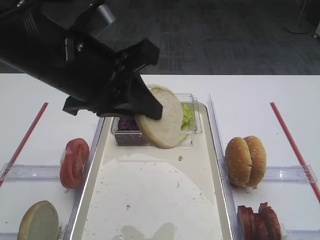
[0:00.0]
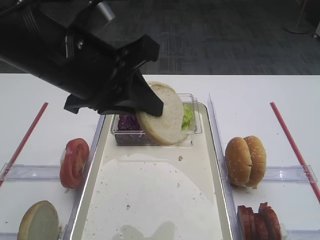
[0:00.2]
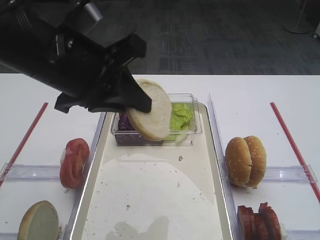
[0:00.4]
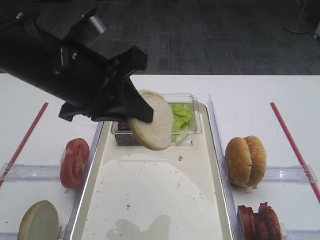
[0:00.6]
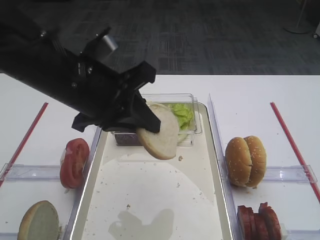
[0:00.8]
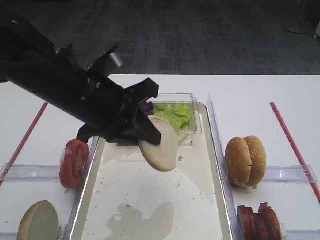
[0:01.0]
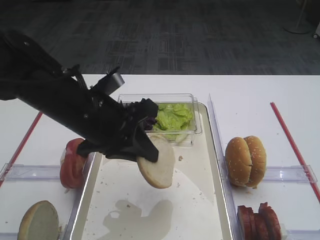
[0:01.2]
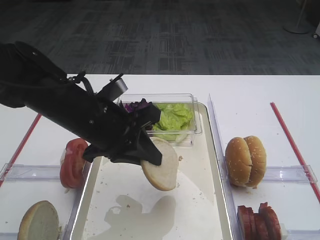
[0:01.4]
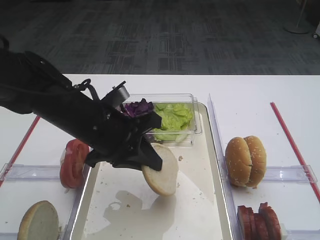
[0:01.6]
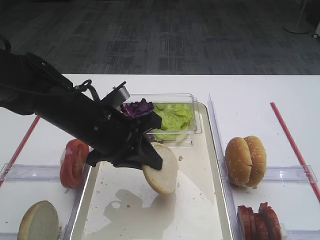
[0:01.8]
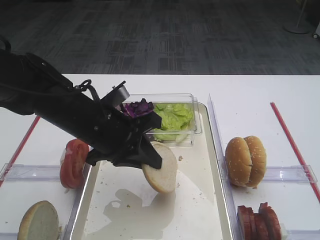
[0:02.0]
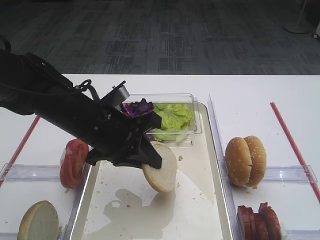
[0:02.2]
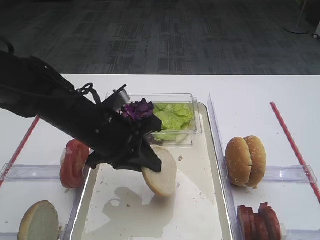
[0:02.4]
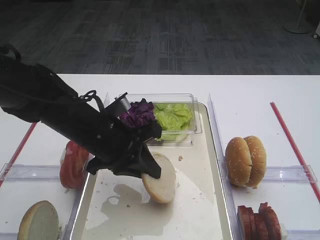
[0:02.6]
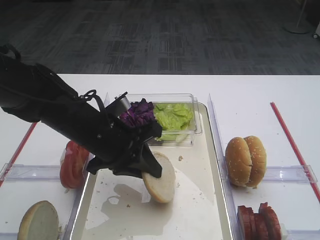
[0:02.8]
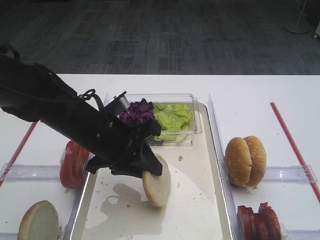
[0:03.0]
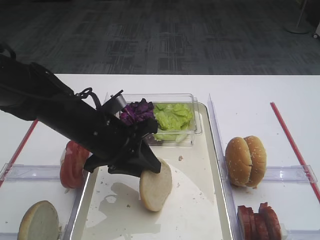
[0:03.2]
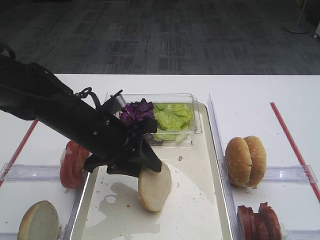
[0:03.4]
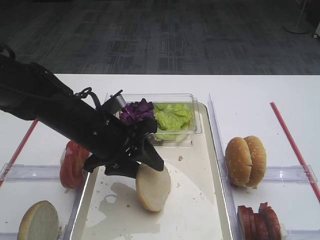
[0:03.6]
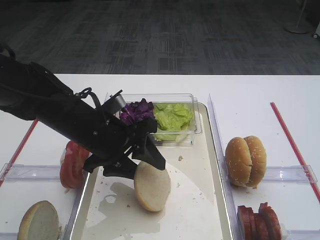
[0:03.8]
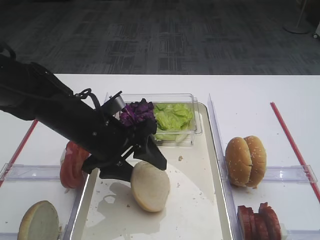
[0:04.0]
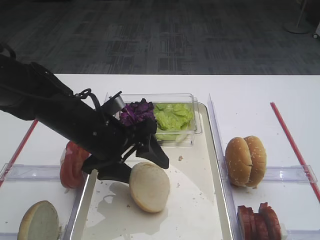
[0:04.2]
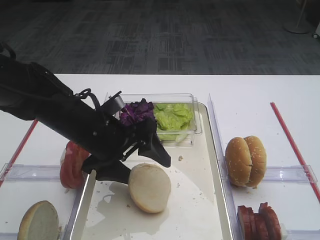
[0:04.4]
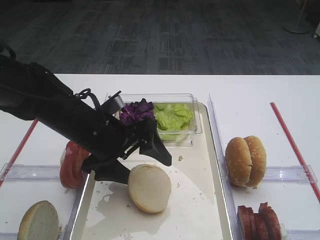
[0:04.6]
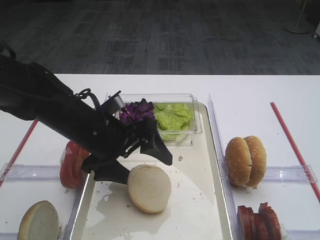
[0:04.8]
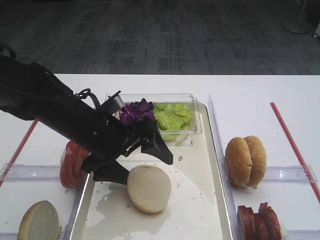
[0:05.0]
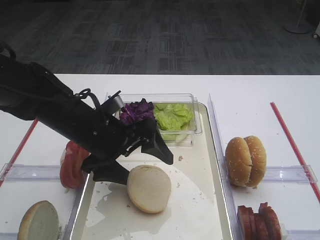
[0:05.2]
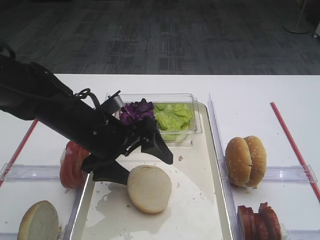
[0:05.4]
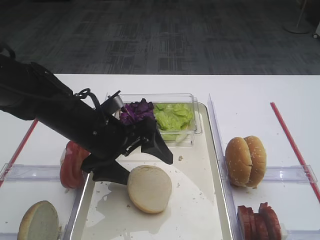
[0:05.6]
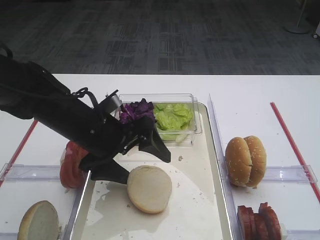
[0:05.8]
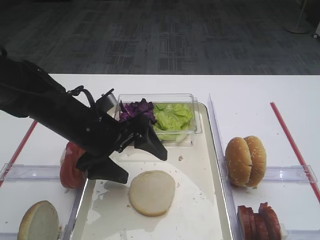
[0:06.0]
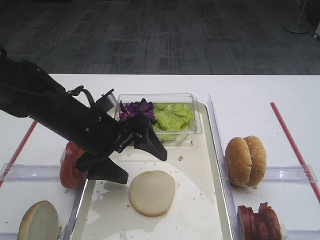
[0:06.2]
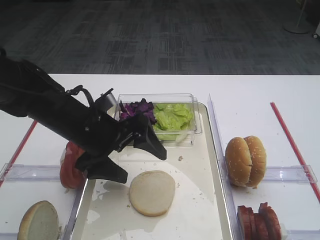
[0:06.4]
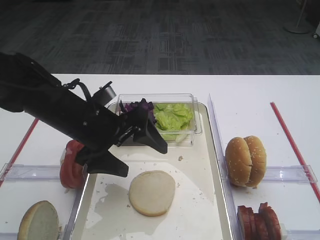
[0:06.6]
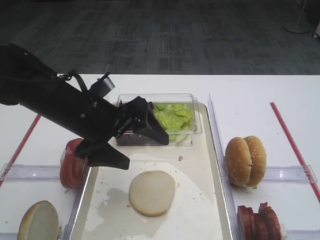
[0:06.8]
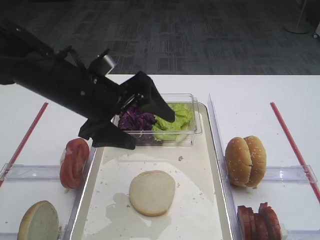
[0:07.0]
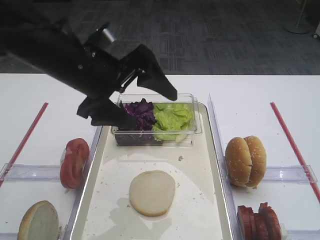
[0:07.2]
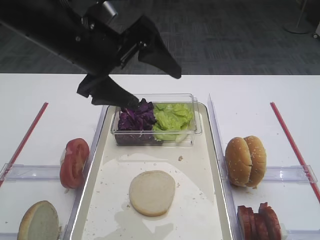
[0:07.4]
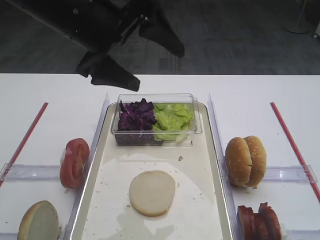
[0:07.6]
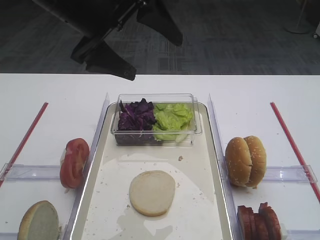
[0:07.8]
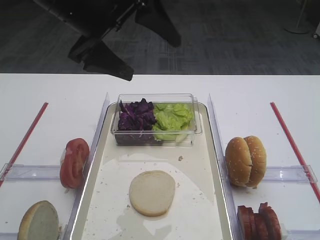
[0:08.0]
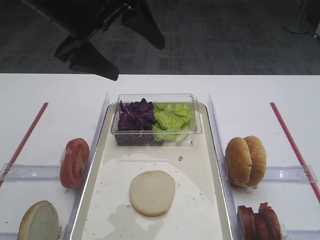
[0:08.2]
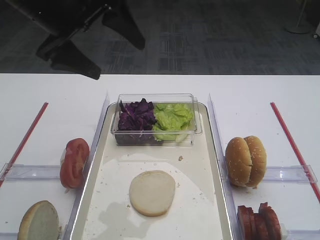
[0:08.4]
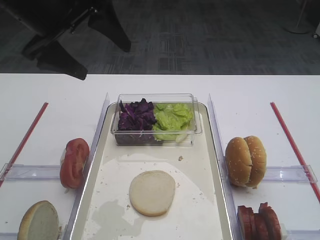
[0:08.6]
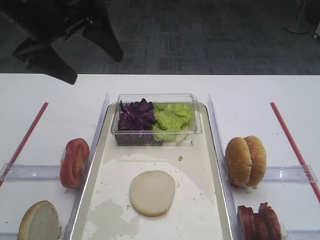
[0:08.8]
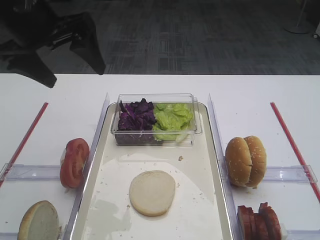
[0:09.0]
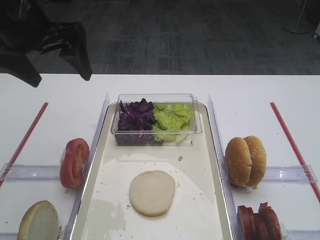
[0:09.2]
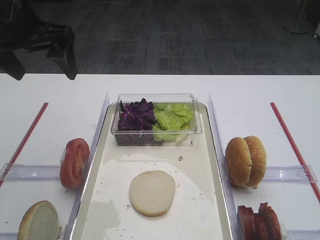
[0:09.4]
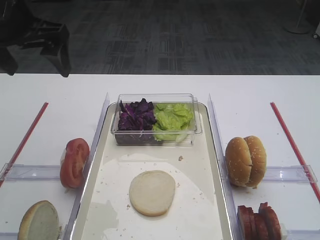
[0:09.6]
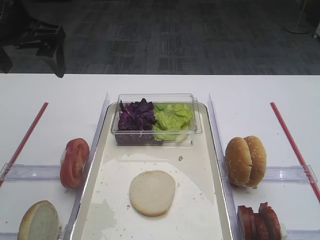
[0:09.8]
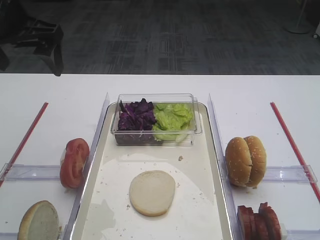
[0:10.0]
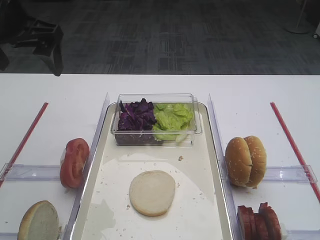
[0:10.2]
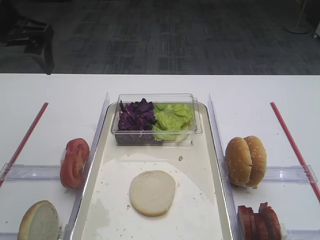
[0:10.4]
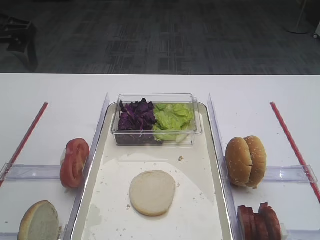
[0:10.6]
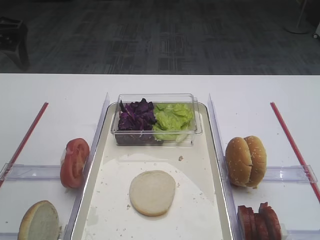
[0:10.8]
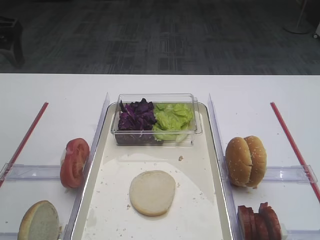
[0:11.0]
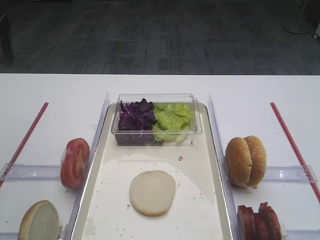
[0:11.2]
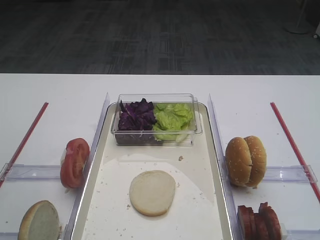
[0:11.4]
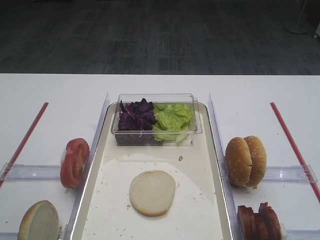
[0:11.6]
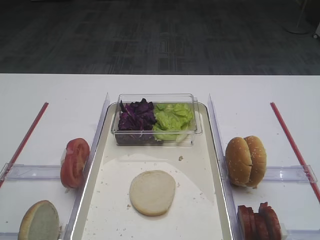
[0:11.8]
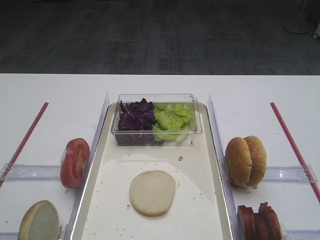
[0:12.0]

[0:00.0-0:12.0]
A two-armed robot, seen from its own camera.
Step, 0:00.0 to 0:06.2: Place the bread slice on the tray with the left gripper.
0:00.0 to 0:01.6: The left gripper goes about 10 cm downward.
0:01.6 to 0:03.0: There are only small adjustments of the grippers.
0:03.0 to 0:04.4: The left gripper opens up.
0:04.4 to 0:06.0: The two grippers keep their place.
0:06.0 to 0:07.6: The left gripper goes approximately 15 cm upward.
0:07.6 to 0:09.0: The left gripper moves to the left, some 10 cm.
0:09.0 to 0:10.4: The left gripper shifts some 5 cm to the left.

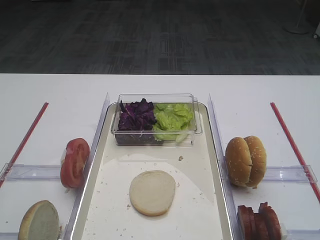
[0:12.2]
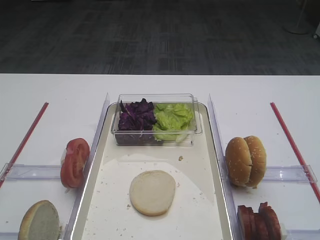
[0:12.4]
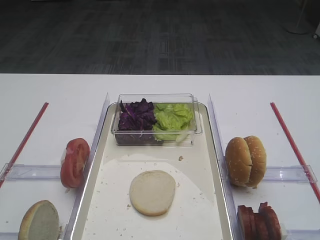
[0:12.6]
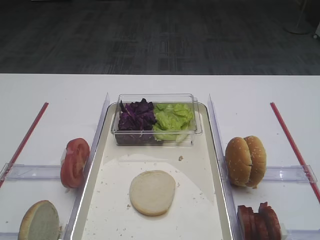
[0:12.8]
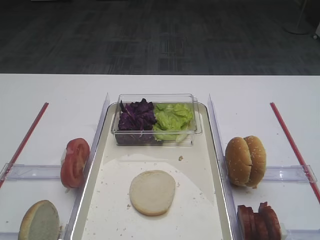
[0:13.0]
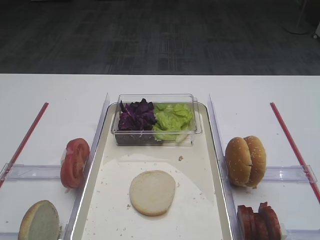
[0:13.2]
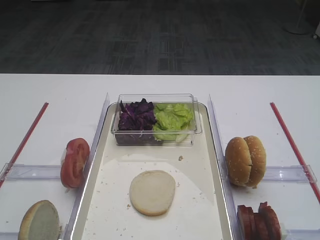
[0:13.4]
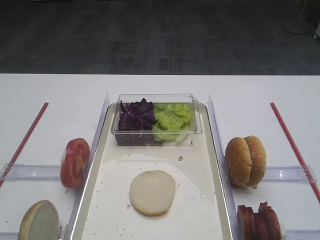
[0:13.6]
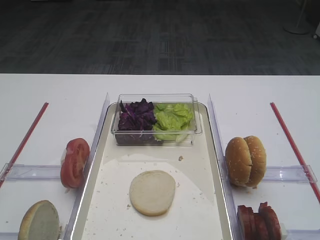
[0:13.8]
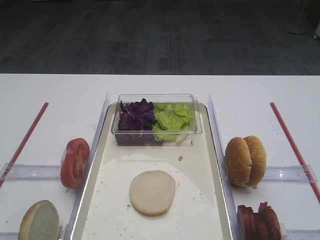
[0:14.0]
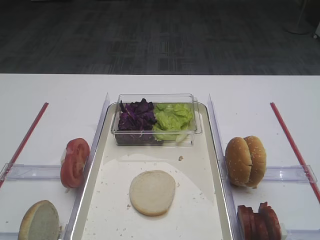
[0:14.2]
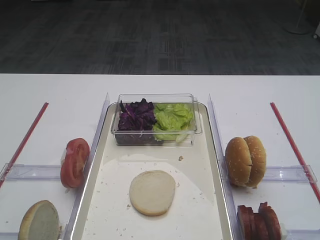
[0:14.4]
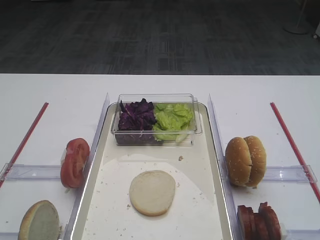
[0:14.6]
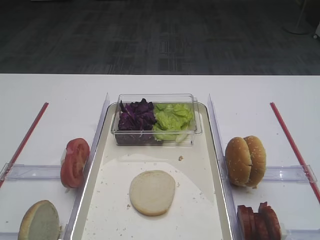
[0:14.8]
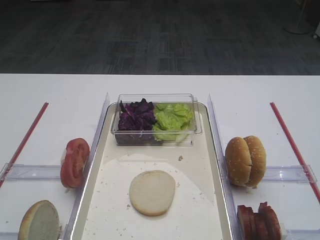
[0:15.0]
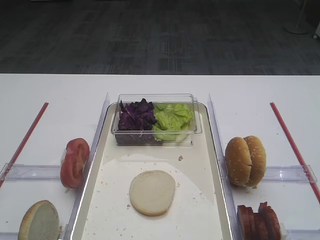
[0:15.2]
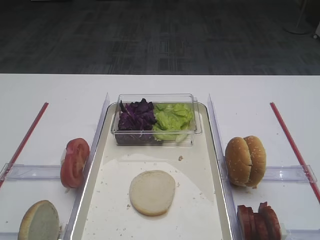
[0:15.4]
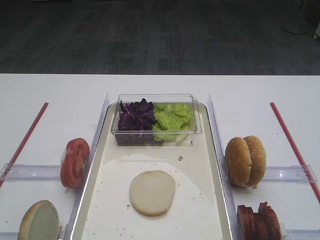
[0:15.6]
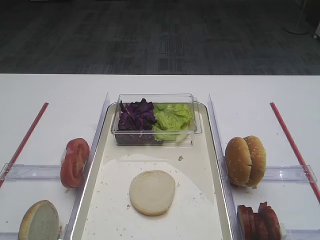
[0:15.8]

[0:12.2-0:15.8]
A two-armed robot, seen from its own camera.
0:14.0 to 0:15.8: Both grippers stay put.

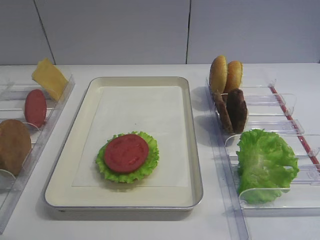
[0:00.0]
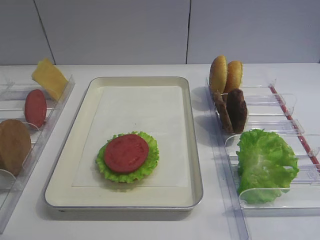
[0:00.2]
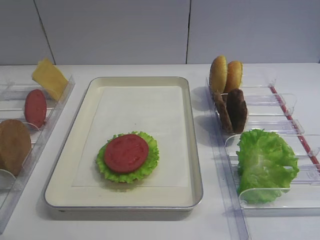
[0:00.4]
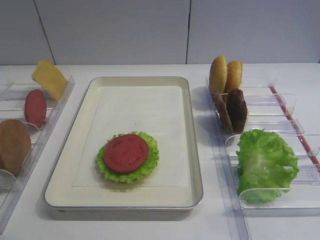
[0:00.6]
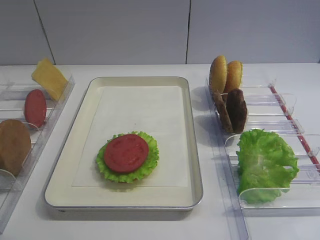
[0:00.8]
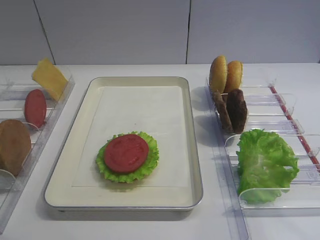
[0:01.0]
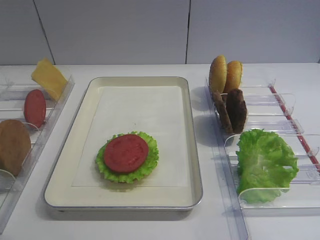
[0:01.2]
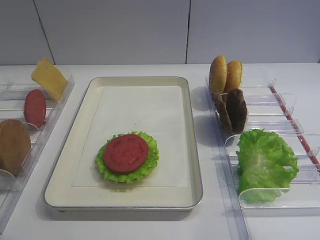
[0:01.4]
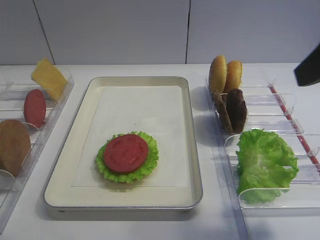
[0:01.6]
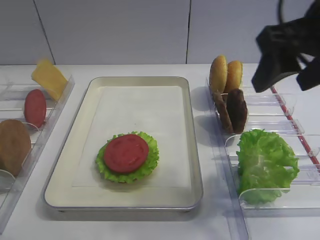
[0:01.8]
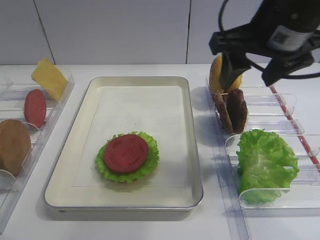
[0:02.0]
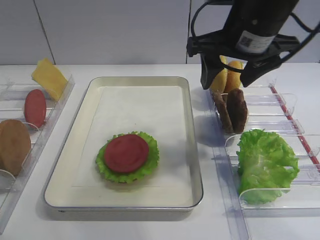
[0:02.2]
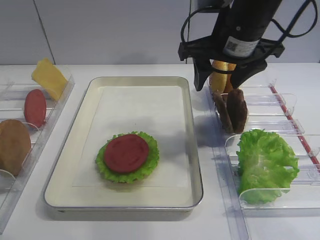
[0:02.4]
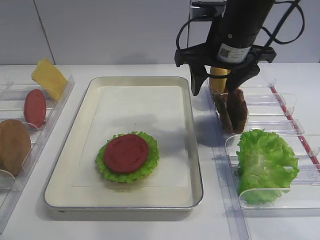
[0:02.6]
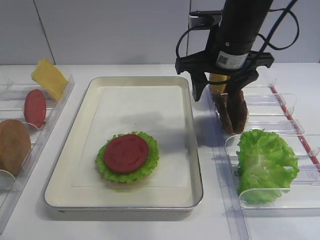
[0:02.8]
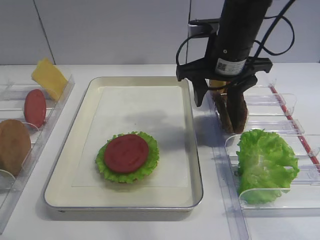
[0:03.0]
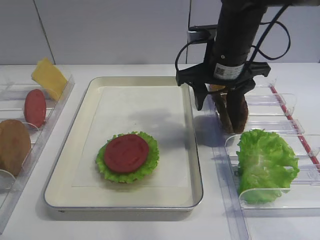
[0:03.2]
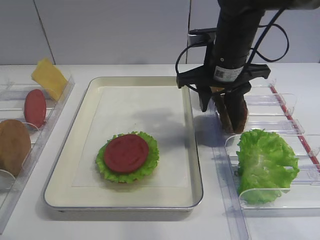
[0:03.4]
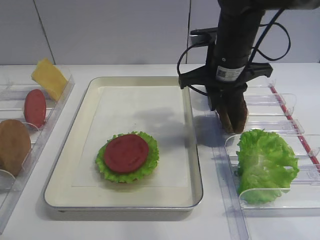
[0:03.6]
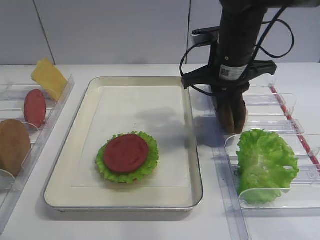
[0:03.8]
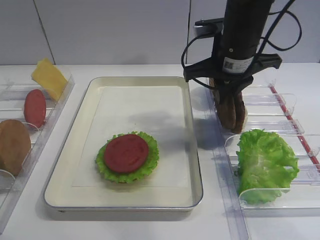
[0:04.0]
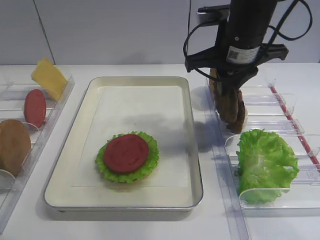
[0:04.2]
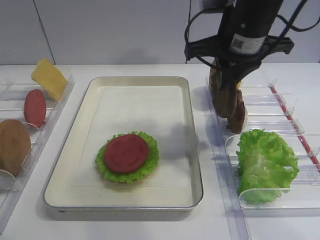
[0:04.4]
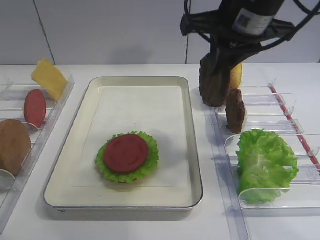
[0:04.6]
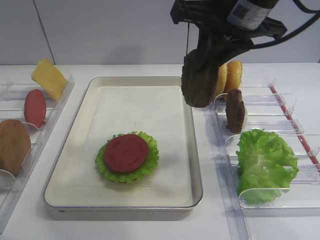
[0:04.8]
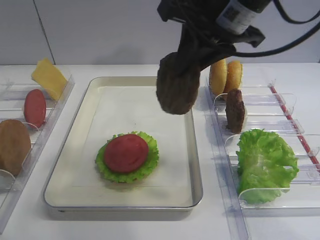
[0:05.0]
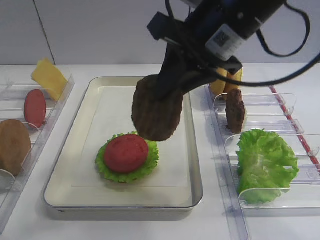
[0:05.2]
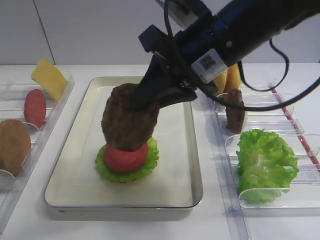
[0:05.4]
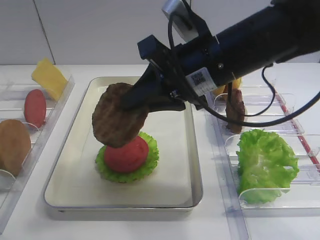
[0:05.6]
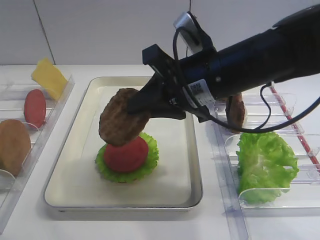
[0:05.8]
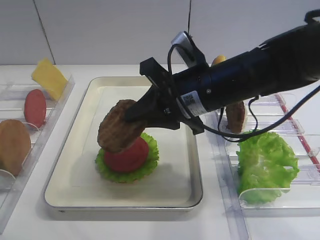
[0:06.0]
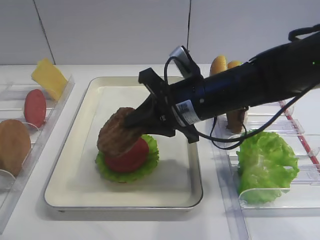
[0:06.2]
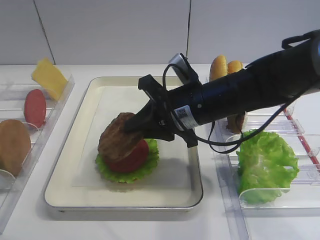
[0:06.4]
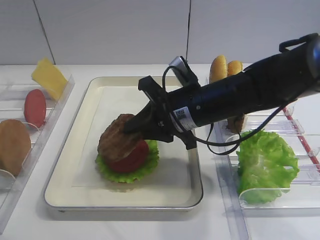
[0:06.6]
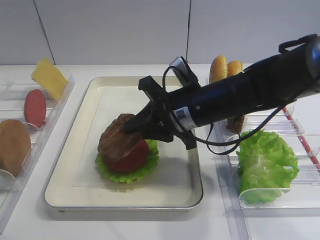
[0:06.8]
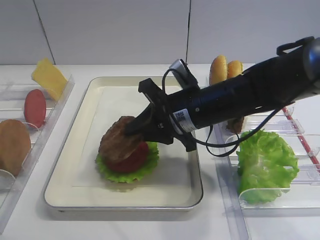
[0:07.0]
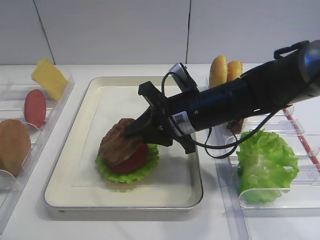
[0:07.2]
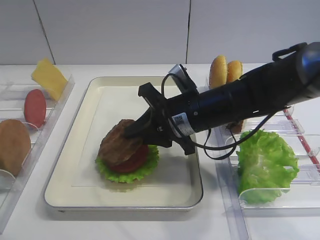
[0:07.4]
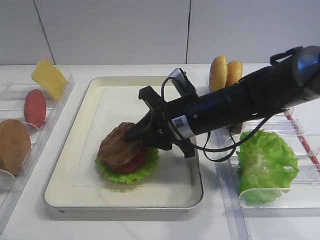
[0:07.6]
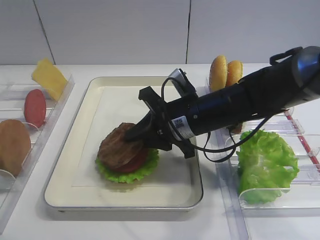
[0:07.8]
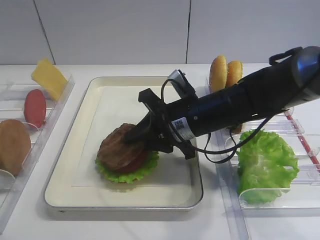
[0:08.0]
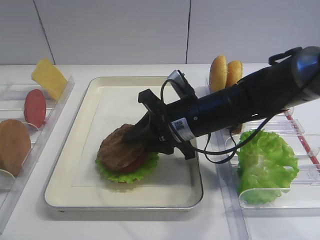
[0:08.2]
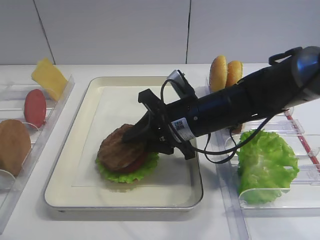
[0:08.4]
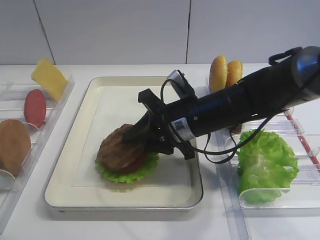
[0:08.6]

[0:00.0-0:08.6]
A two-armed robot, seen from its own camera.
Step, 0:00.0 to 0:04.2: Pick up the cutlet with the right gripper.
0:01.4 to 0:02.8: The right gripper shifts about 25 cm forward and to the left.
0:02.8 to 0:04.4: The right gripper closes its fingers.
0:04.4 to 0:05.8: The right gripper goes roughly 5 cm backward.
0:05.8 to 0:07.2: The right gripper travels downward by some 10 cm.
0:07.2 to 0:08.6: Neither gripper changes place.
